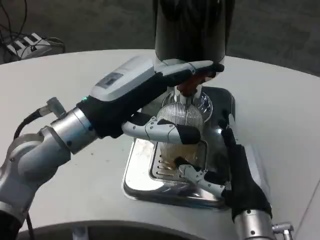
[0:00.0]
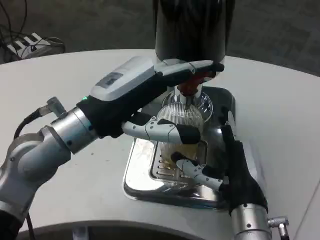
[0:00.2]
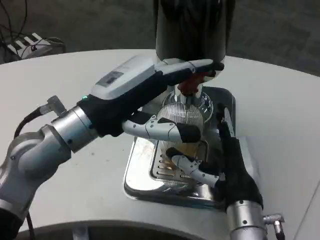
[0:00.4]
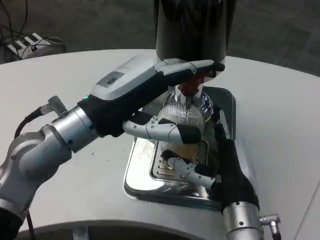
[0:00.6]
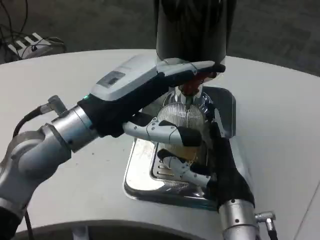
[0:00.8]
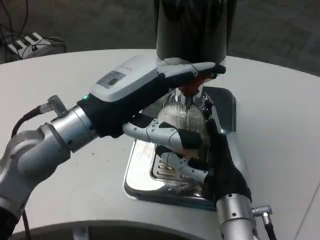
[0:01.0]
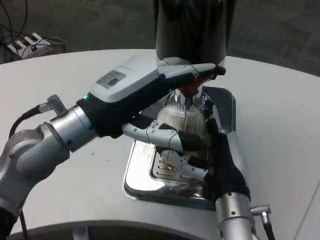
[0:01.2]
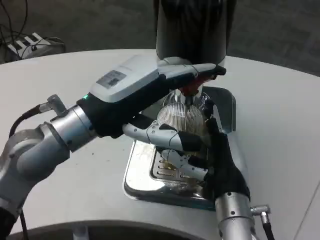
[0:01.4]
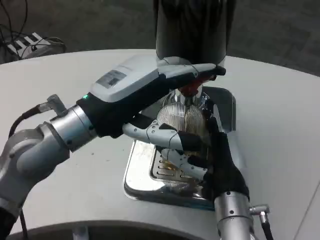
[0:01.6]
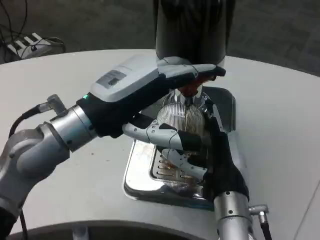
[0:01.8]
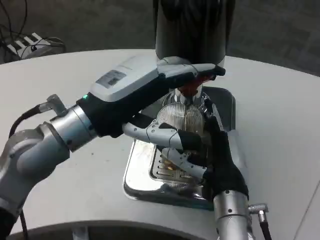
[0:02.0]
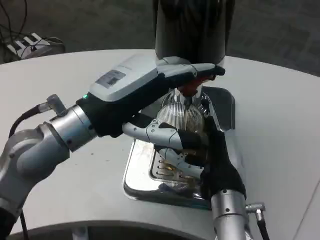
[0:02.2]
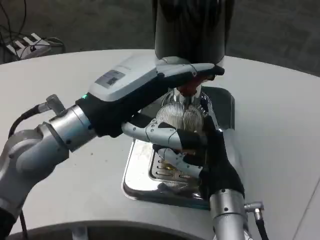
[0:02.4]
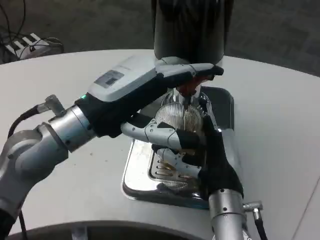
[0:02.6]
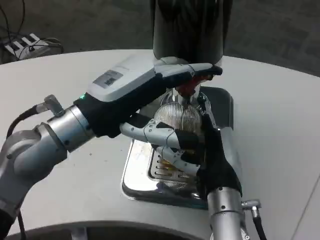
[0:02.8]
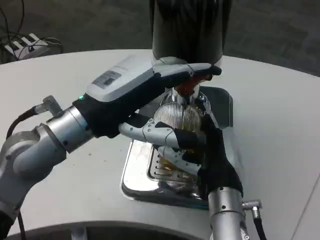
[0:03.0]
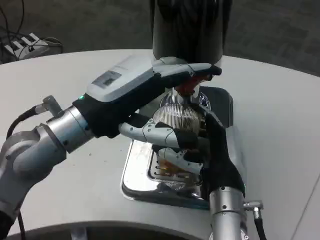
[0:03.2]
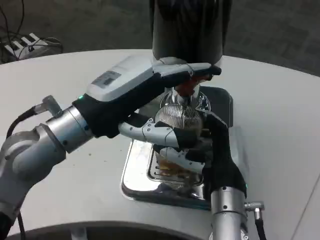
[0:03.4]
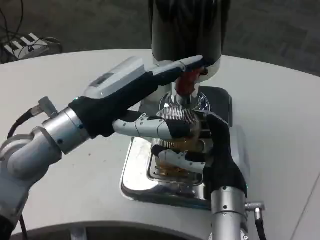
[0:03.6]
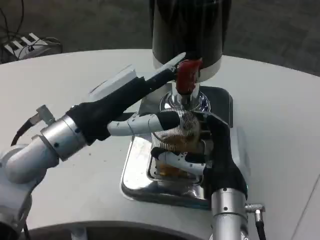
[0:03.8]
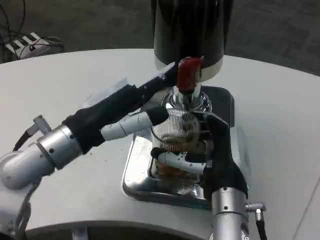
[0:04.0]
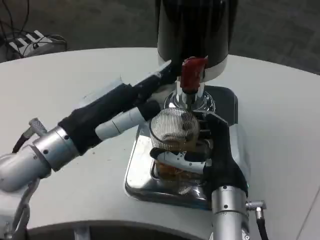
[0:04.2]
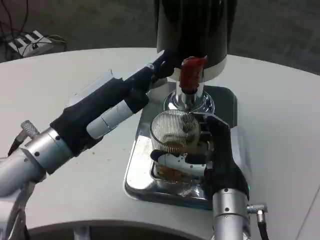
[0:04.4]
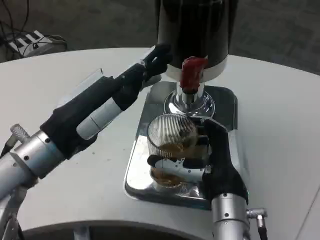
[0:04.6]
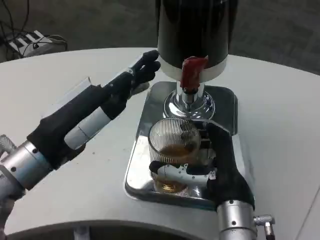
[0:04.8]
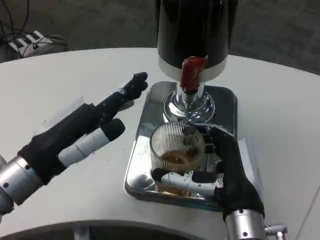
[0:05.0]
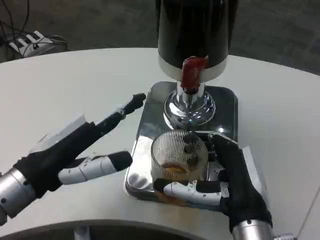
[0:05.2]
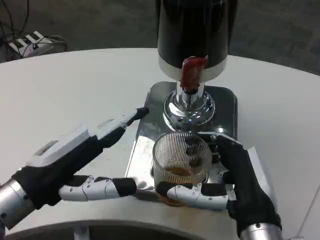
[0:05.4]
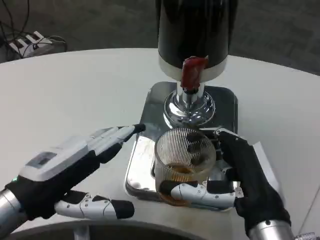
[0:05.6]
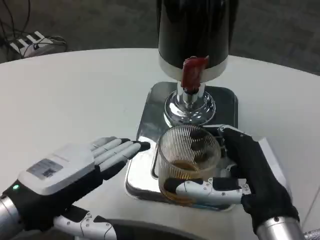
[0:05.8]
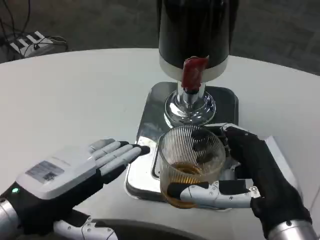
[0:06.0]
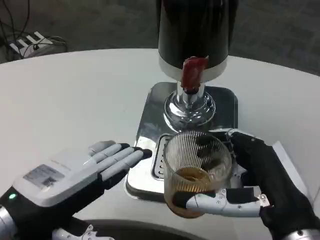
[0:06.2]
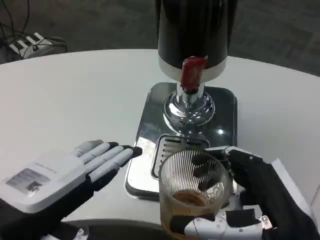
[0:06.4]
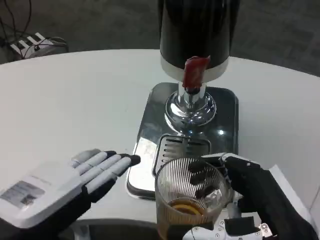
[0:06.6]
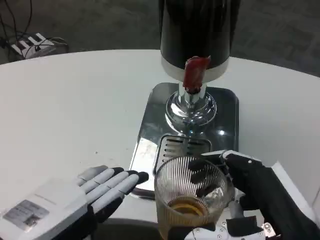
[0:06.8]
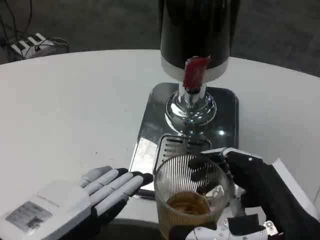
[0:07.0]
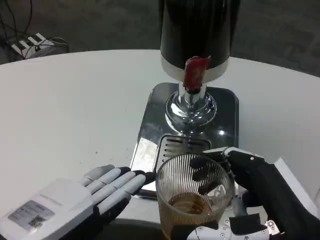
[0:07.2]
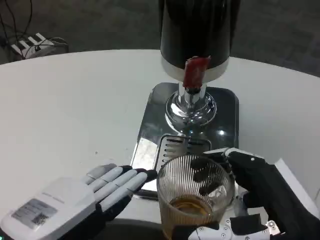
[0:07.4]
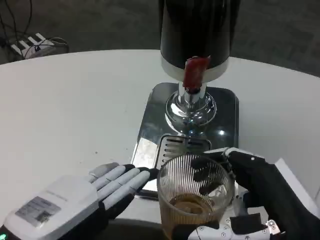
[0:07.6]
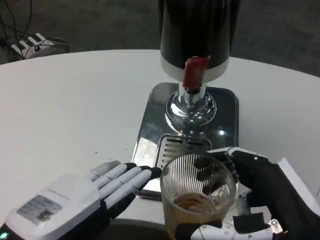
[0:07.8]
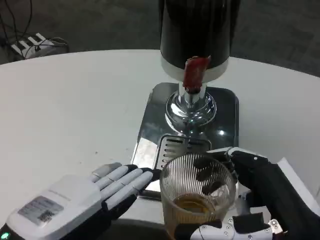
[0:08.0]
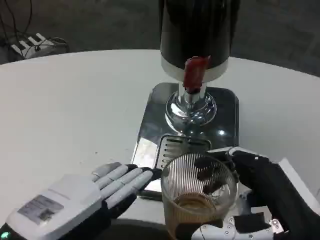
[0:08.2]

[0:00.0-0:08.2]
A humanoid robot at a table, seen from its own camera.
Task of the whole recording: Grasp the cup under the faucet to collect the drink, then remove the cup.
0.0 to 1.6 s: The hands stay close to where they were, moving slightly.
1.6 to 3.2 s: Both hands stay about where they are.
3.2 to 5.0 s: The left hand goes roughly 5 cm to the left; the right hand shifts roughly 5 cm backward.
5.0 to 6.6 s: The left hand moves backward, about 10 cm. Meanwhile the right hand moves backward and to the right, approximately 10 cm.
6.6 to 8.2 s: The hands move only a little.

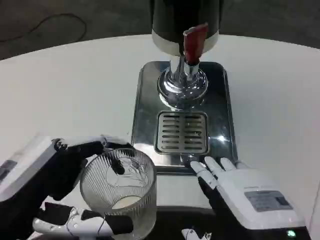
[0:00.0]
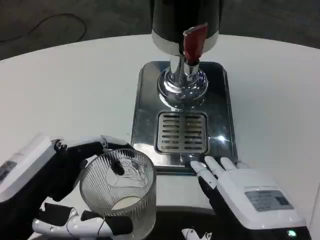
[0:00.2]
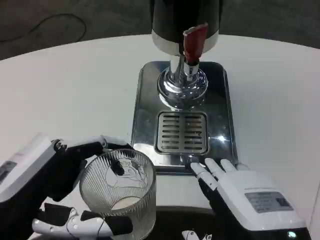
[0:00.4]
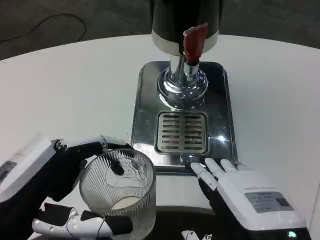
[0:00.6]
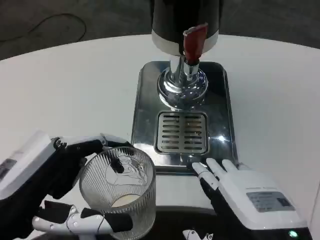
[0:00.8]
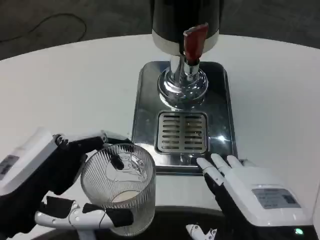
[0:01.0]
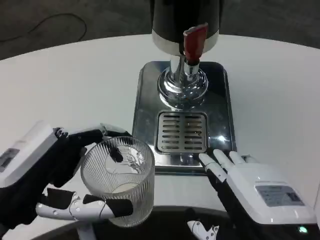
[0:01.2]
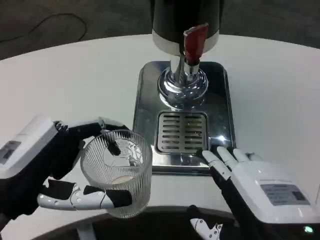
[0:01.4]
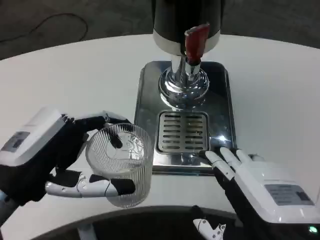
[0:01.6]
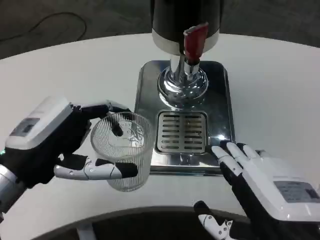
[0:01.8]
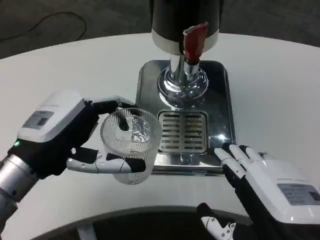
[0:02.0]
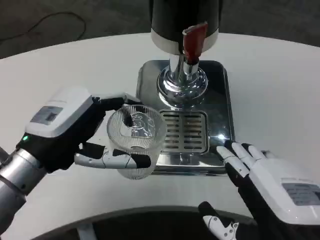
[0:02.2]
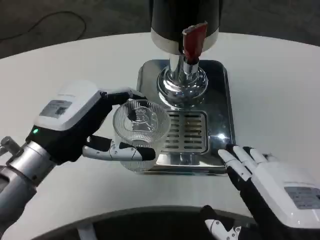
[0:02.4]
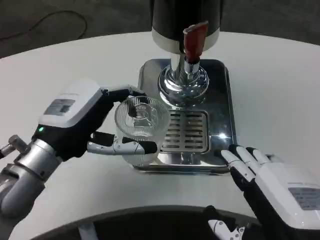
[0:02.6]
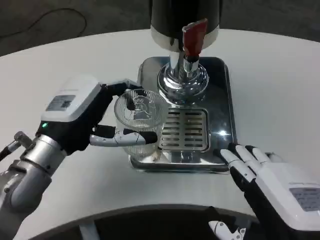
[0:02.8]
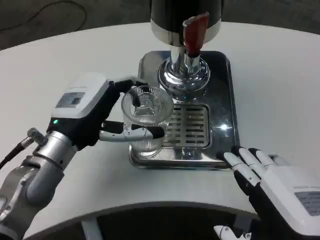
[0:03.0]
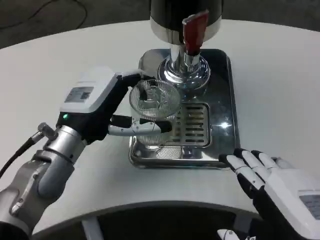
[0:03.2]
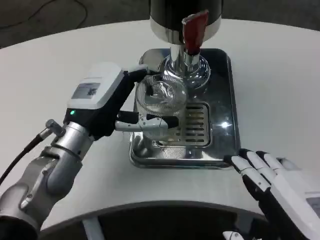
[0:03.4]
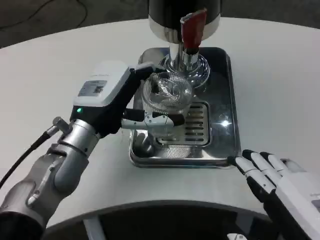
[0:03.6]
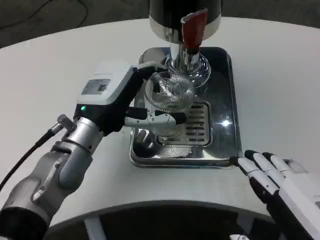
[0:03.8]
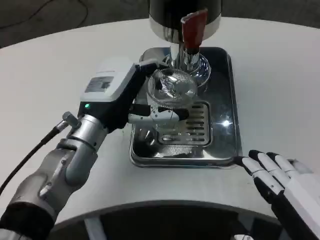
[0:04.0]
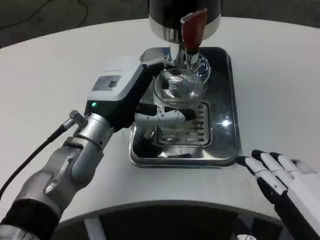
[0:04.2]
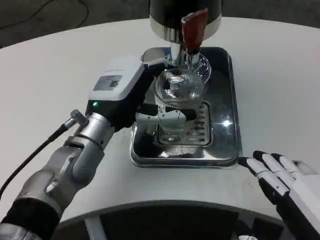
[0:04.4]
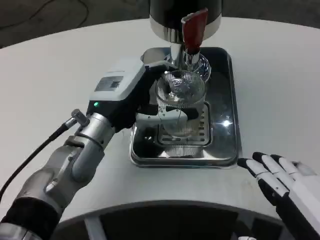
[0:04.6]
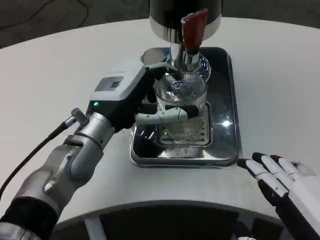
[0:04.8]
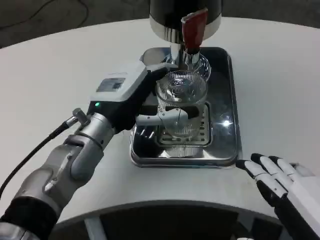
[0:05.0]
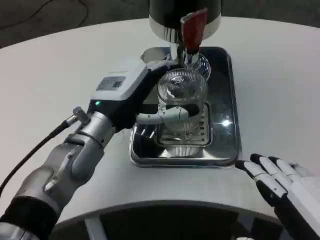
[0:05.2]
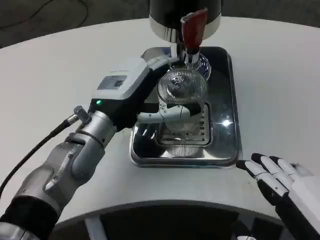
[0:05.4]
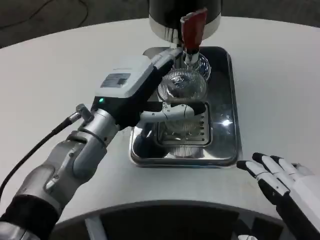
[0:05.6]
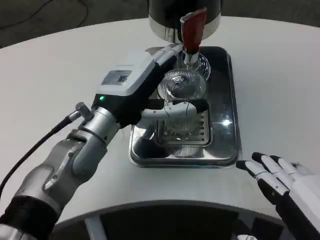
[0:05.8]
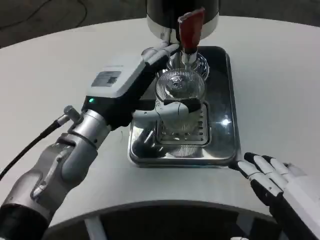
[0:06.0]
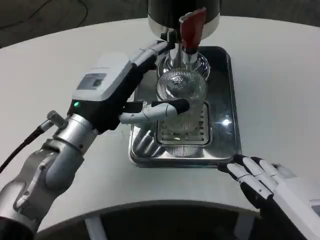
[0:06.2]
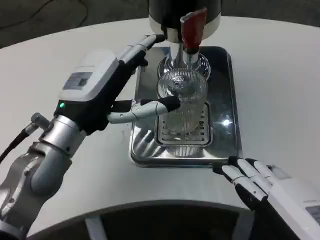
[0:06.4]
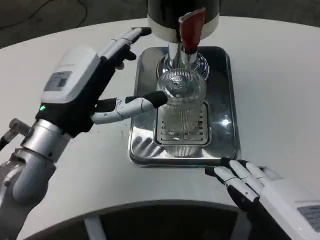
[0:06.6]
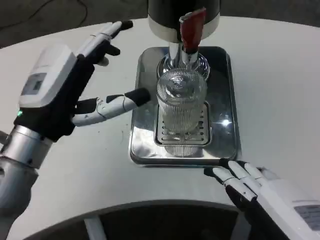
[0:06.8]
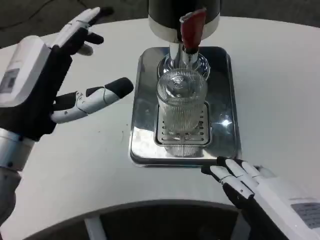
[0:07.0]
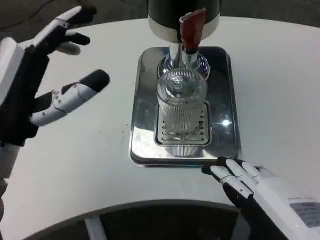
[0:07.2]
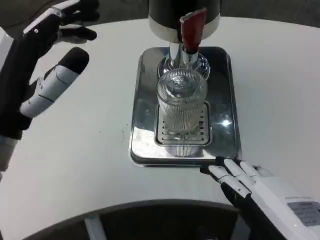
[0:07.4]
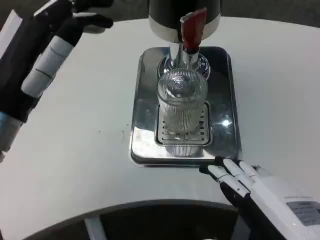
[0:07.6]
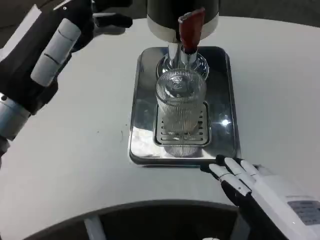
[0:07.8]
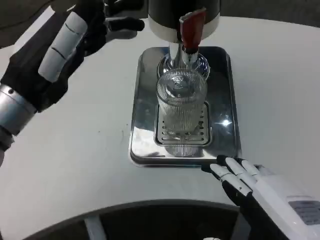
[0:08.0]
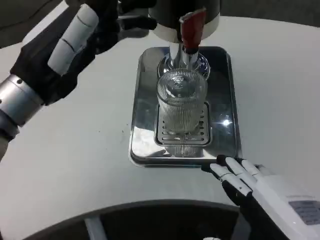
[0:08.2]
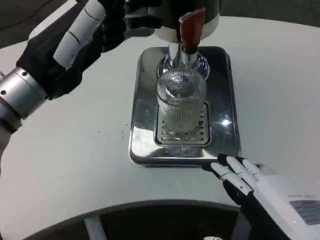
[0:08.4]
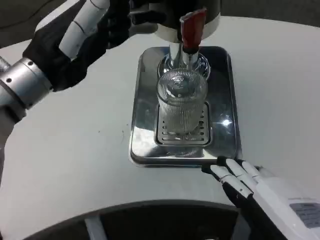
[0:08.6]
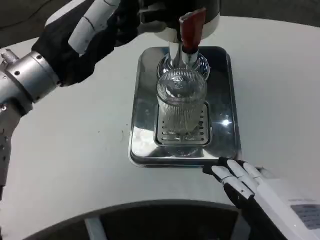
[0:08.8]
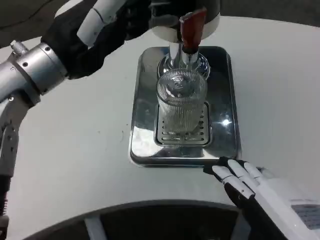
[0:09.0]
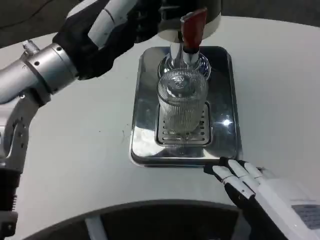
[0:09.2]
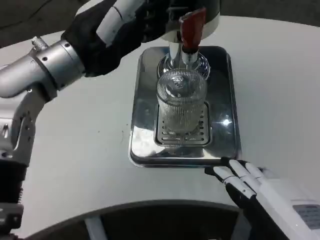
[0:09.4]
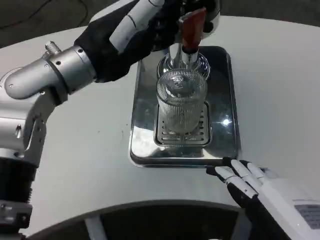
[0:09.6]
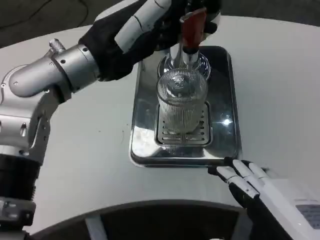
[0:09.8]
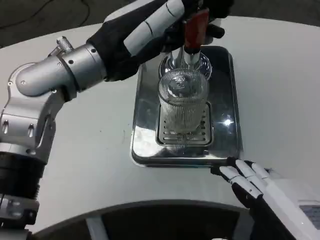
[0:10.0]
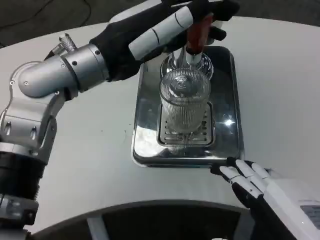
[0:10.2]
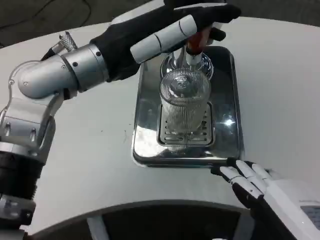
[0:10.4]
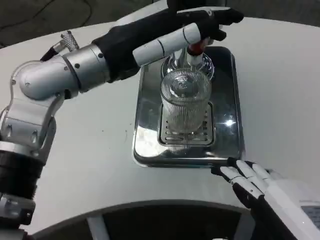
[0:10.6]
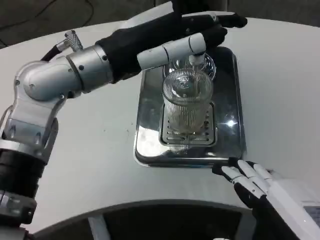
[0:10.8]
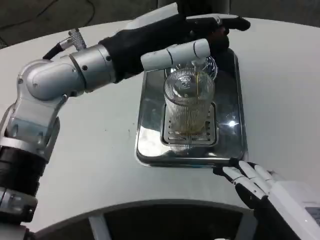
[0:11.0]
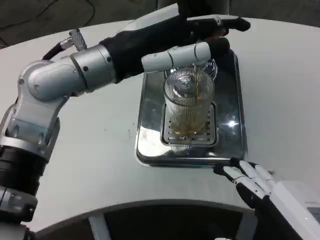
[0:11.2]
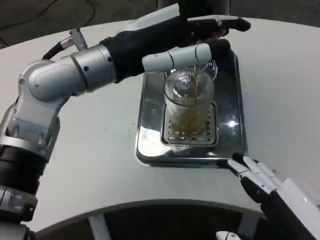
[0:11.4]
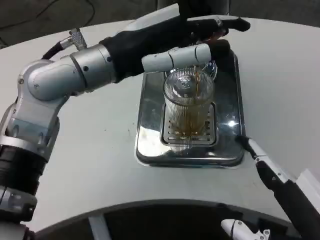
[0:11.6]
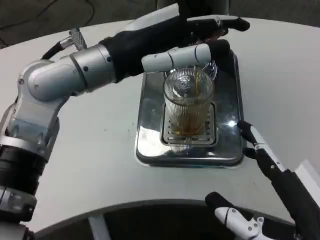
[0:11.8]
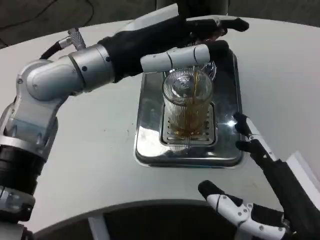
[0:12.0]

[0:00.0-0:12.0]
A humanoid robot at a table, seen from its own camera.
Task of the whole recording: Grasp the cup under the faucet to collect the drink, then remove the cup.
1.6 to 3.0 s: The left hand goes some 10 cm forward and to the right.
3.0 to 4.4 s: The left hand heads to the right, covering some 5 cm.
6.0 to 7.6 s: The left hand moves to the left, backward and upward, roughly 10 cm.
7.6 to 9.0 s: The left hand travels upward and forward by roughly 10 cm.

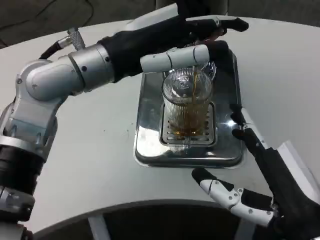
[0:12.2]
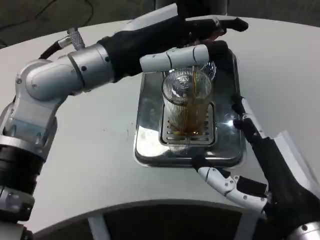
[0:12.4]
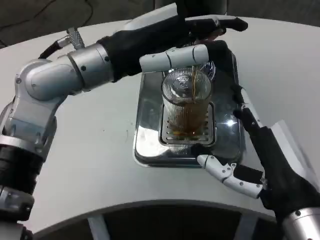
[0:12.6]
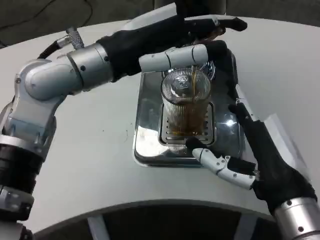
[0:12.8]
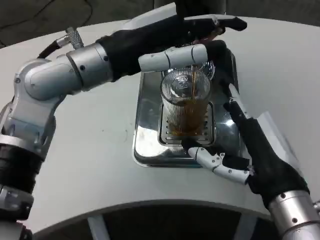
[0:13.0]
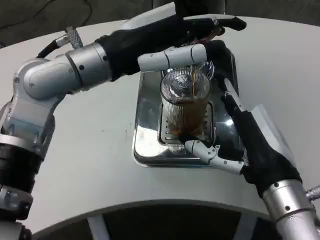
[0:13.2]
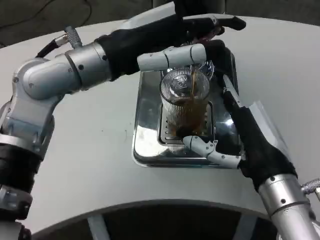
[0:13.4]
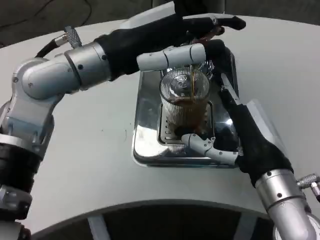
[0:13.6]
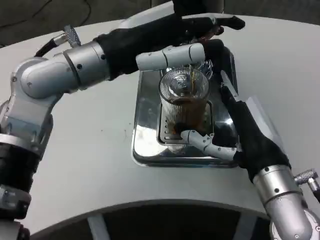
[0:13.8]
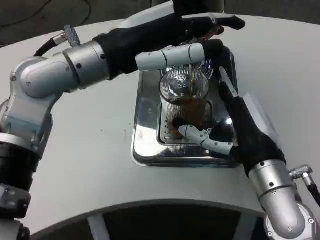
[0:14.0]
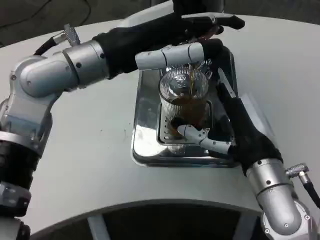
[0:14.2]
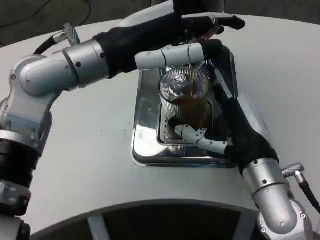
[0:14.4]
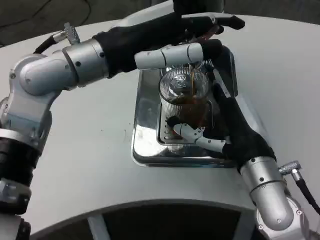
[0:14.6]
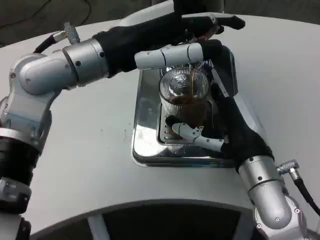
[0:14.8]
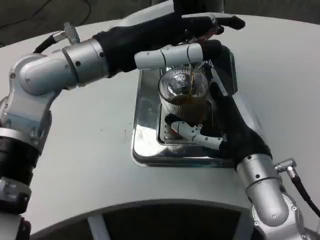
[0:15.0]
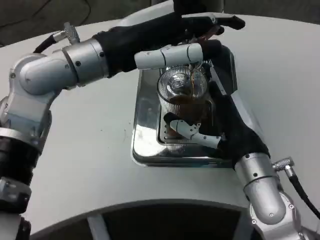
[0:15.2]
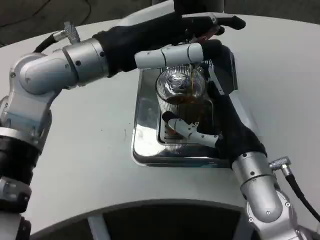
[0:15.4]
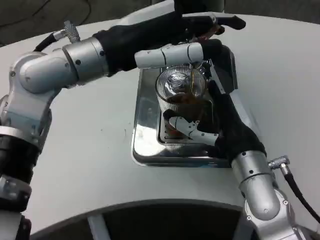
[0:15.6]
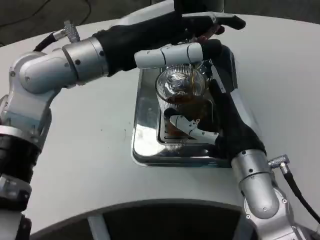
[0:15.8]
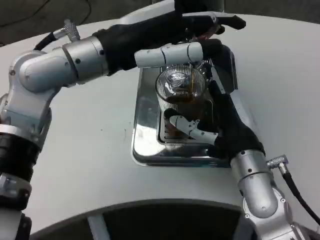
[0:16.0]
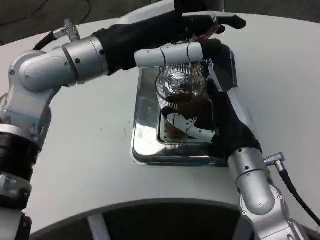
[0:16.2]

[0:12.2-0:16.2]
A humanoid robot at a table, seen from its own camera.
Task of the whole recording: Grasp the cup under the faucet to collect the drink, then remove the cup.
12.2 to 13.6 s: The right hand shifts some 10 cm forward.
14.8 to 16.2 s: There are only small adjustments of the hands.
